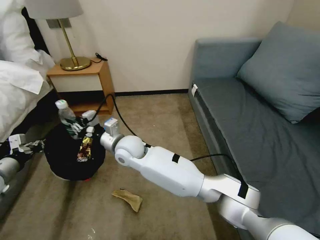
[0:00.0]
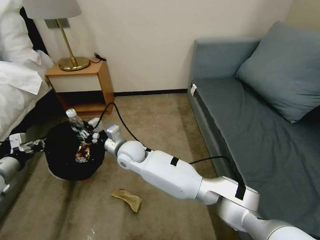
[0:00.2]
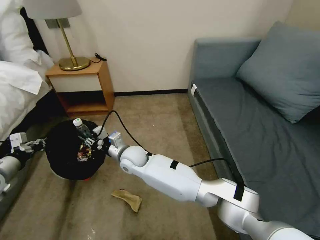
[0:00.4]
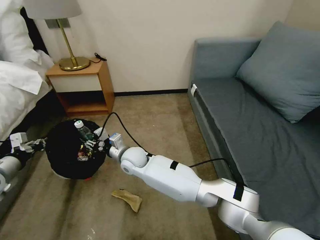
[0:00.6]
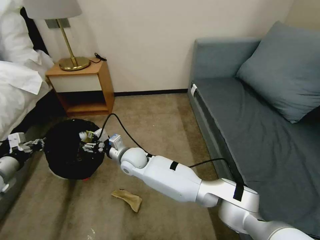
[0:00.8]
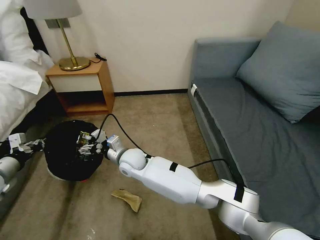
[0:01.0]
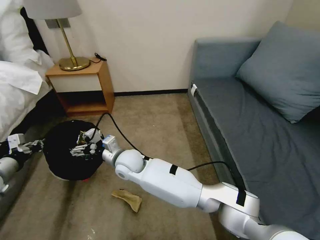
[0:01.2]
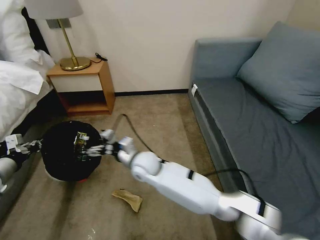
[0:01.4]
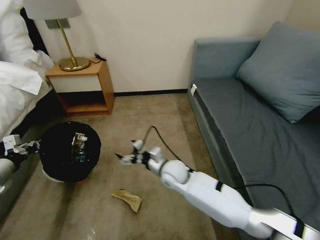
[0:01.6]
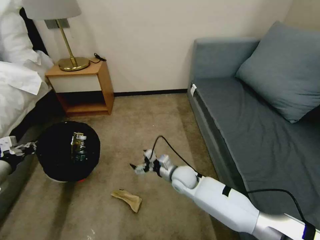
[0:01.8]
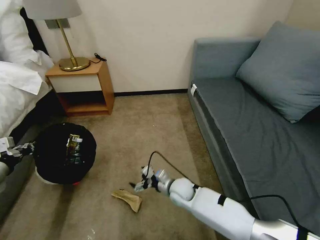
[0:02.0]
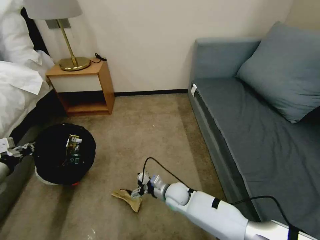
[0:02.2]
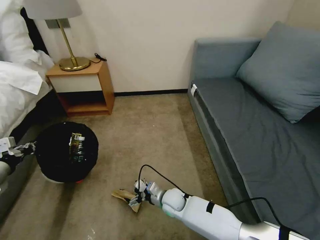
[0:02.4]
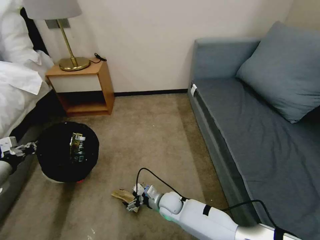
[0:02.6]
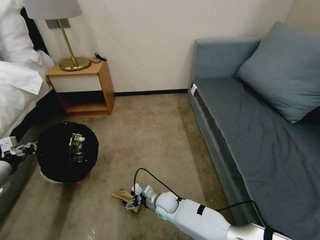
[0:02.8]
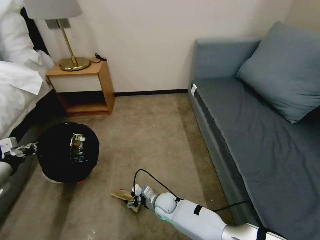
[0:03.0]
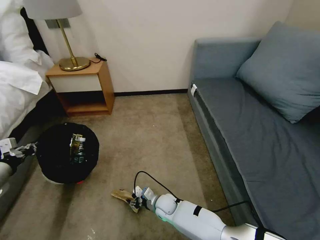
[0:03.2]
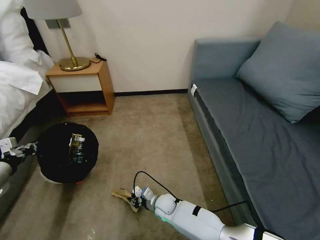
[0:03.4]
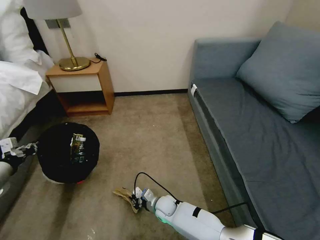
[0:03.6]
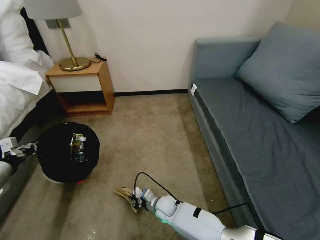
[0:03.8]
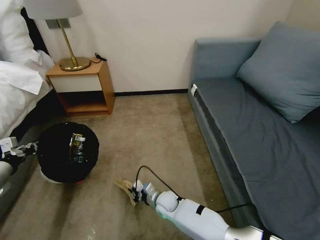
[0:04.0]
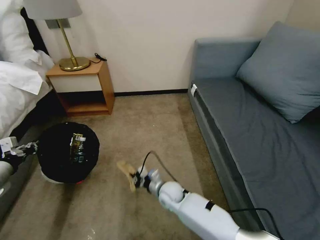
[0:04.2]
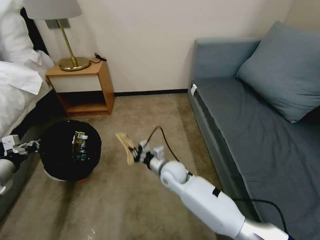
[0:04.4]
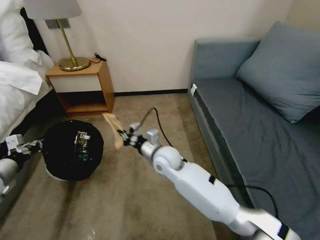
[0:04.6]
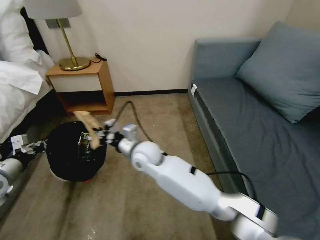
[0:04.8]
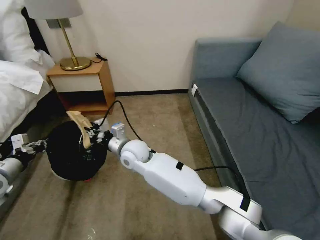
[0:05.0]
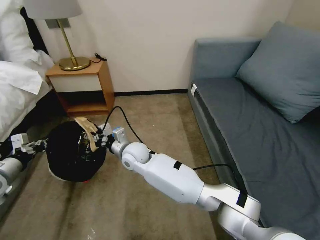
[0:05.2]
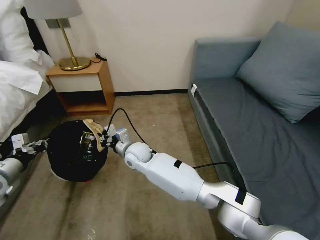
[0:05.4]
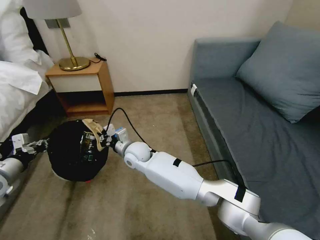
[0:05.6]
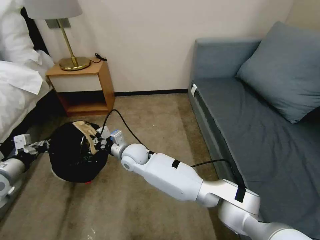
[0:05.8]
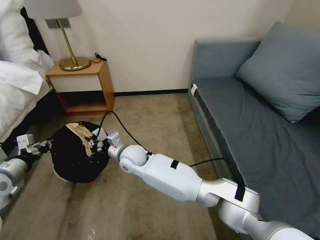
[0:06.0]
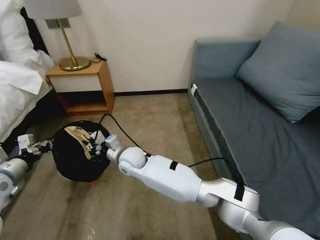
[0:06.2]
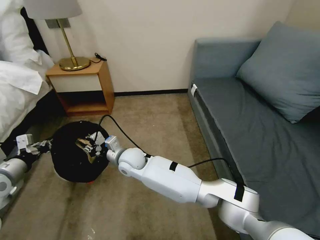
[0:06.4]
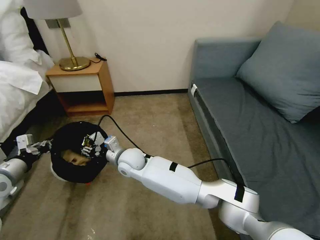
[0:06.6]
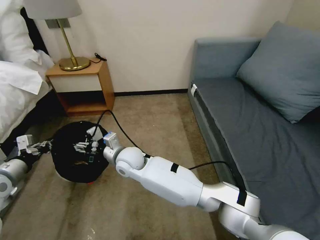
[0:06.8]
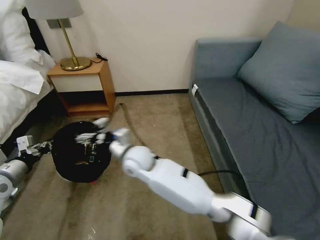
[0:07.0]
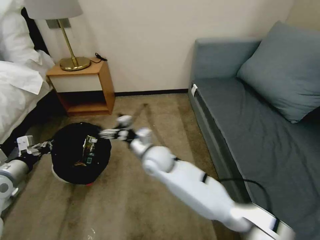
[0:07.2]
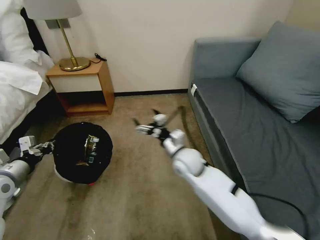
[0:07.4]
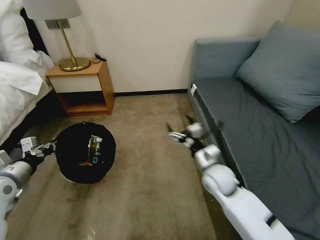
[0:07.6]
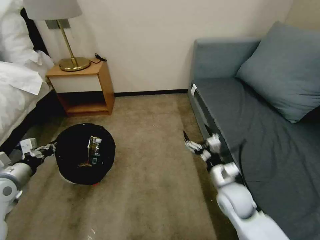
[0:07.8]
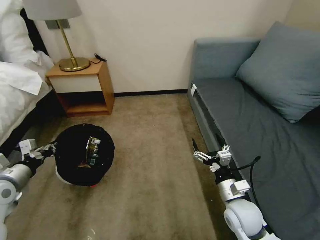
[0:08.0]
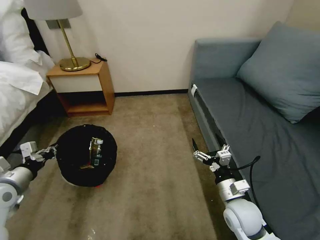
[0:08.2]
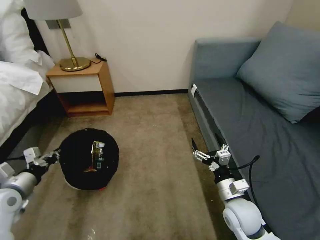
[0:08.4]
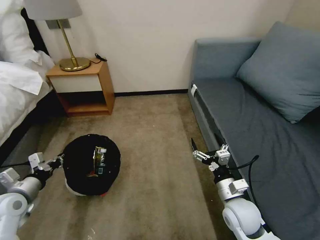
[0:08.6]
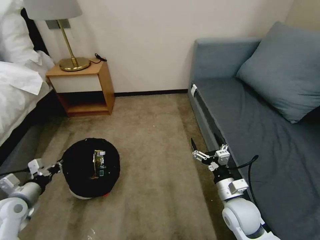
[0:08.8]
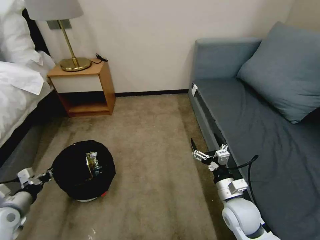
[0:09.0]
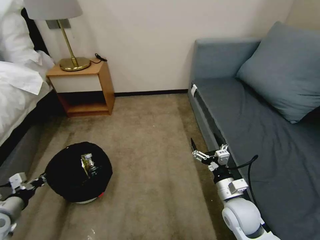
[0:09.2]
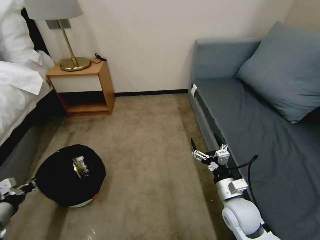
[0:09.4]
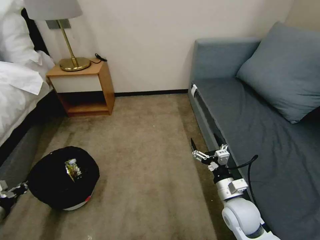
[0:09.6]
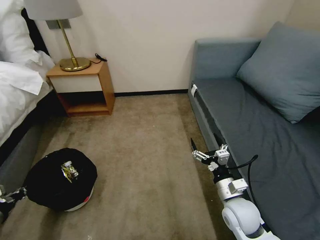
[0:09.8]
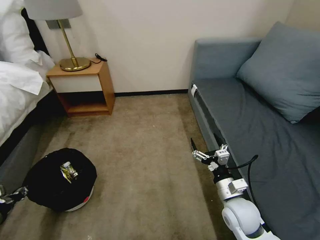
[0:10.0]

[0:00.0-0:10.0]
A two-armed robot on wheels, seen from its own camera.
Task of the whole recording: Pick up the trash bin, then pick up the garbage on the floor and place it into the trash bin.
0:00.0 to 0:01.4: The right gripper is displaced downward by some 5 cm, and opens its fingers.
0:01.4 to 0:02.8: The right gripper is displaced downward and to the right by some 25 cm.
0:02.8 to 0:04.2: The right gripper goes about 10 cm upward, and closes.
0:04.2 to 0:05.8: The right gripper heads to the left, upward and forward, covering some 20 cm.
0:05.8 to 0:07.2: The right gripper heads to the right, covering roughly 10 cm, and opens up.
0:07.2 to 0:08.6: The left gripper heads downward, covering roughly 5 cm, while the right gripper moves to the right and backward, approximately 30 cm.
0:08.6 to 0:10.0: The left gripper heads to the left and backward, covering approximately 10 cm.

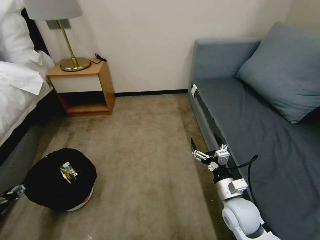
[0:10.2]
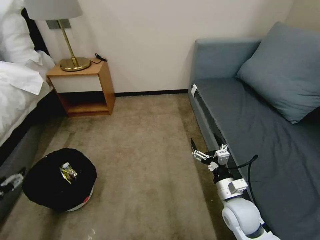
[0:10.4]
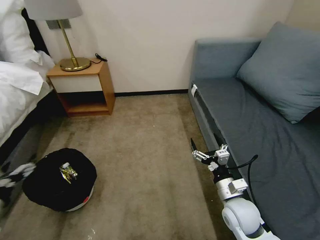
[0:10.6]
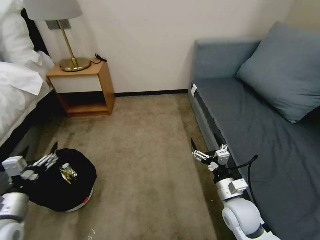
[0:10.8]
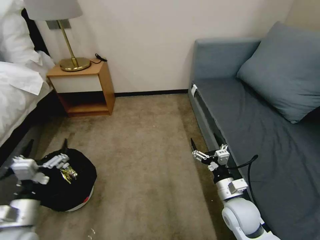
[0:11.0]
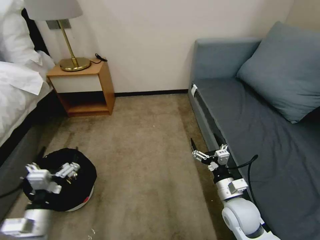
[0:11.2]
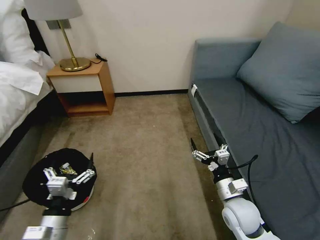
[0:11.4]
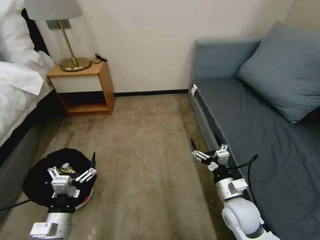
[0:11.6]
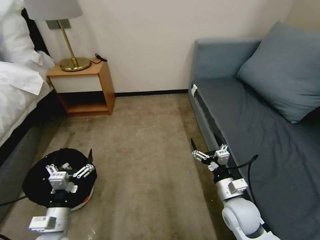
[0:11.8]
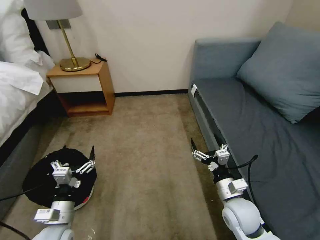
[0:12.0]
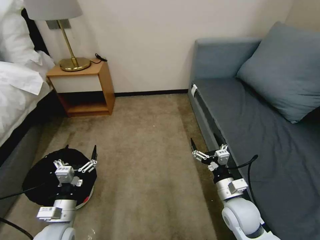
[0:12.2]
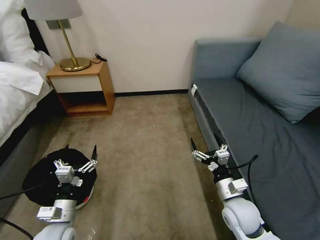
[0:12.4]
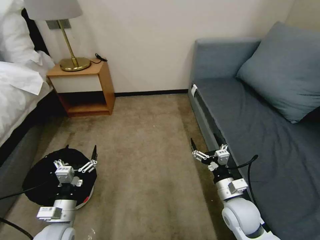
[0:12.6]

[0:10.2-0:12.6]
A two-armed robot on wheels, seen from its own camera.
Task of the whole recording: Pick up the trash bin, then pick up the garbage on the floor and place it into the trash bin.
0:10.2 to 0:11.4: The left gripper is displaced to the right by some 25 cm, and opens up.
0:11.4 to 0:12.6: The left gripper moves about 5 cm.

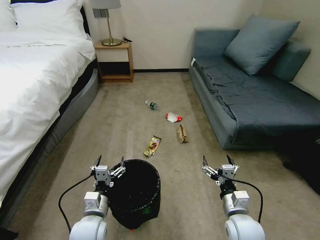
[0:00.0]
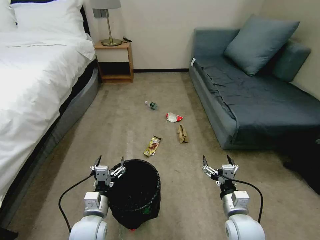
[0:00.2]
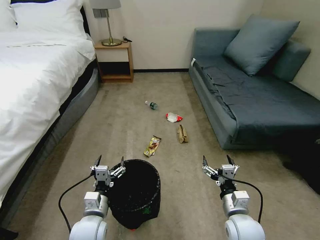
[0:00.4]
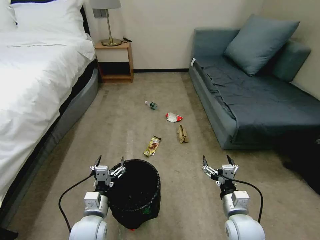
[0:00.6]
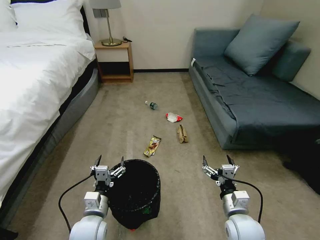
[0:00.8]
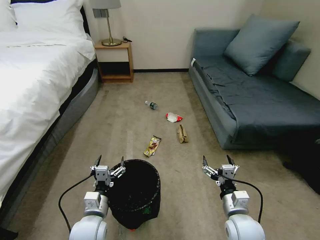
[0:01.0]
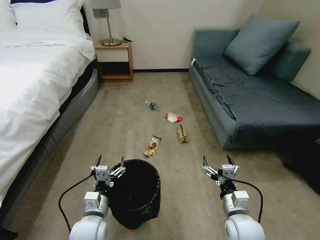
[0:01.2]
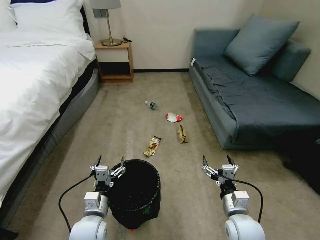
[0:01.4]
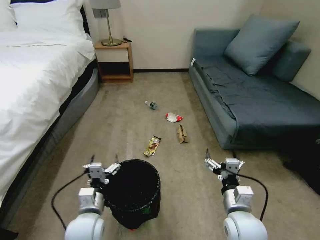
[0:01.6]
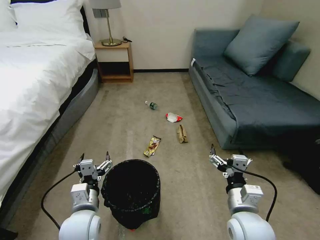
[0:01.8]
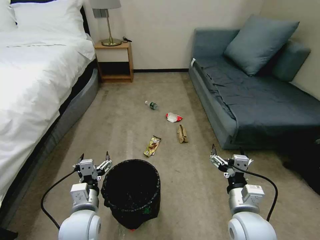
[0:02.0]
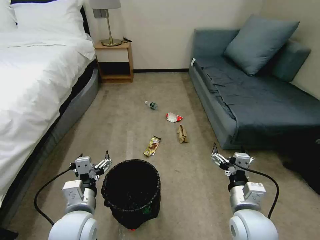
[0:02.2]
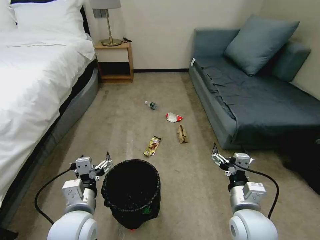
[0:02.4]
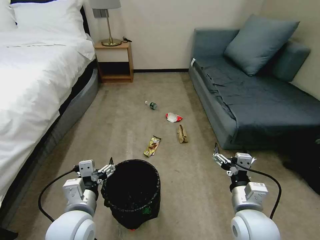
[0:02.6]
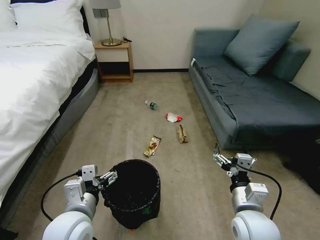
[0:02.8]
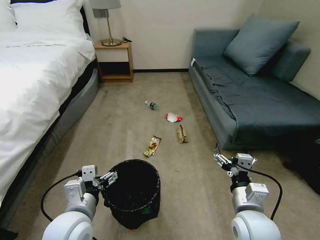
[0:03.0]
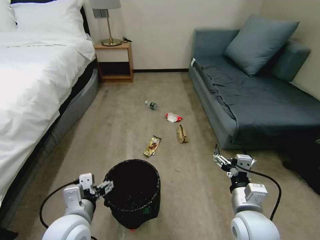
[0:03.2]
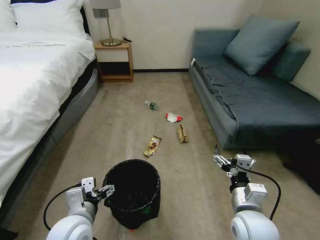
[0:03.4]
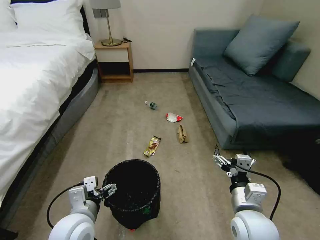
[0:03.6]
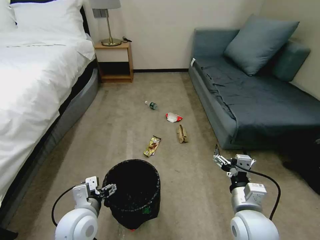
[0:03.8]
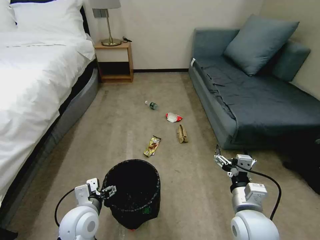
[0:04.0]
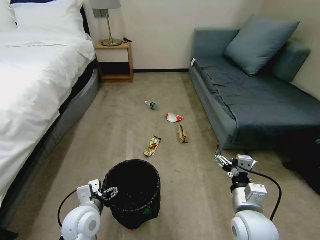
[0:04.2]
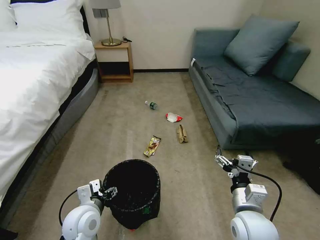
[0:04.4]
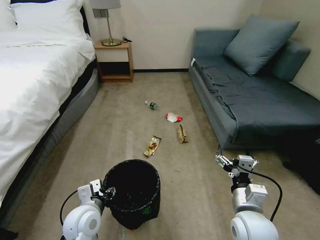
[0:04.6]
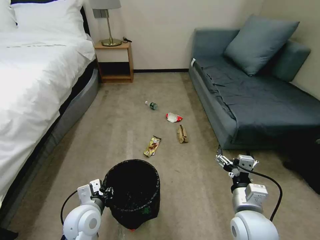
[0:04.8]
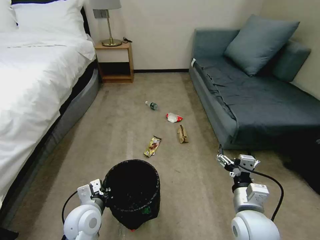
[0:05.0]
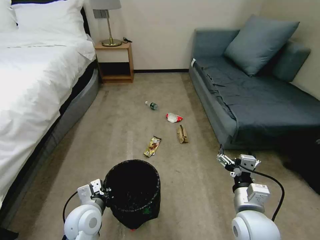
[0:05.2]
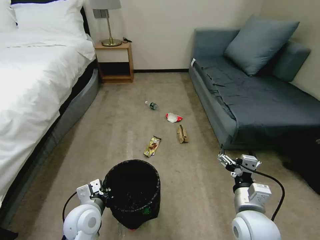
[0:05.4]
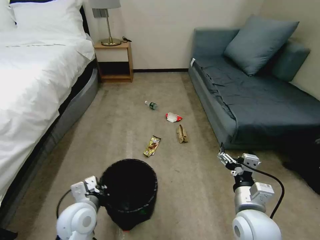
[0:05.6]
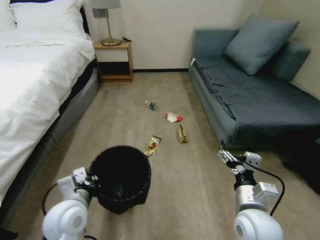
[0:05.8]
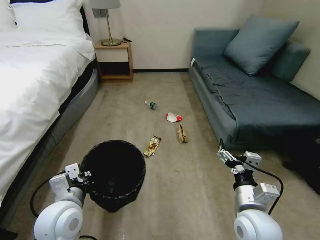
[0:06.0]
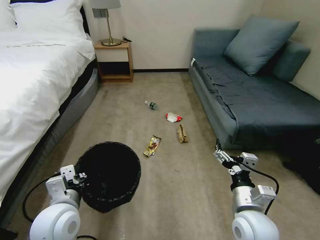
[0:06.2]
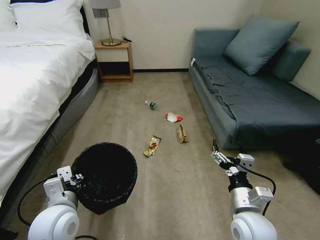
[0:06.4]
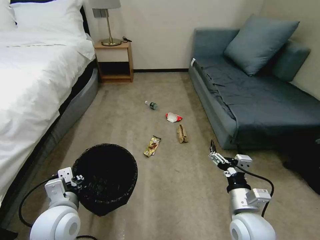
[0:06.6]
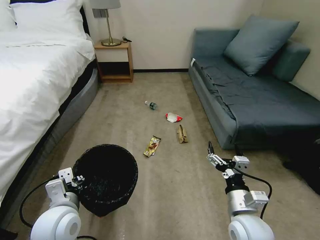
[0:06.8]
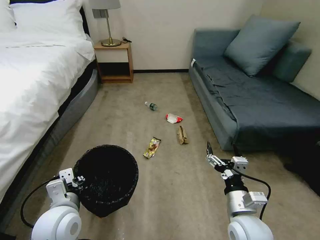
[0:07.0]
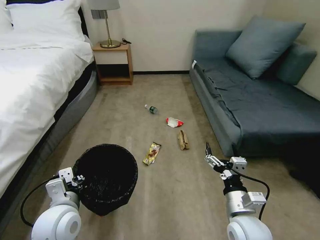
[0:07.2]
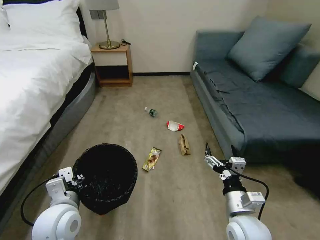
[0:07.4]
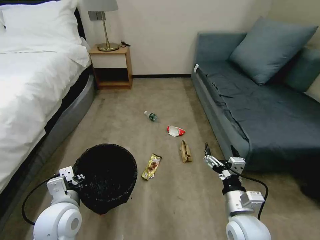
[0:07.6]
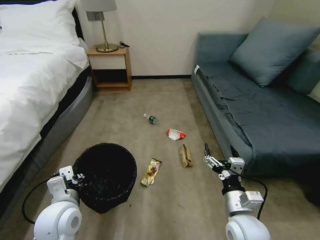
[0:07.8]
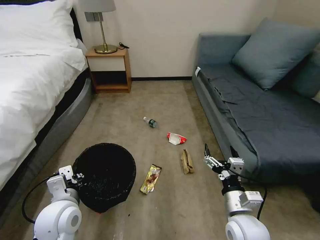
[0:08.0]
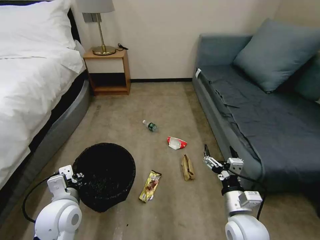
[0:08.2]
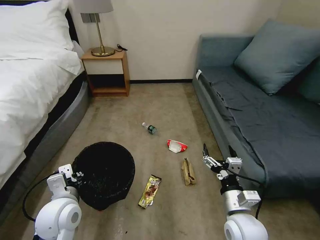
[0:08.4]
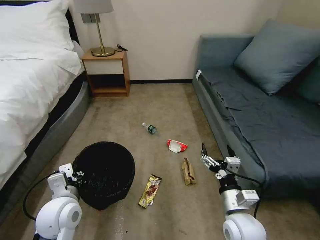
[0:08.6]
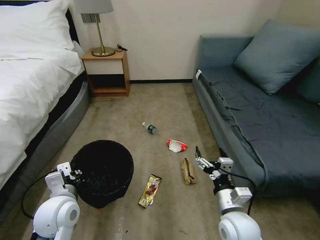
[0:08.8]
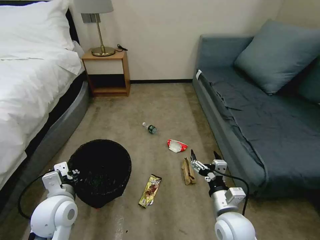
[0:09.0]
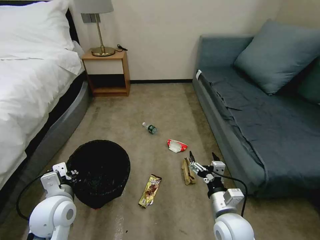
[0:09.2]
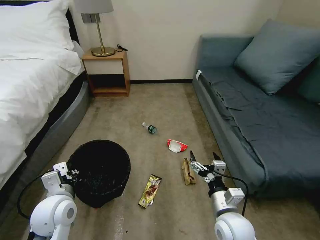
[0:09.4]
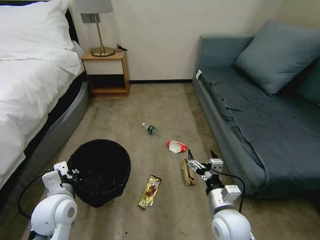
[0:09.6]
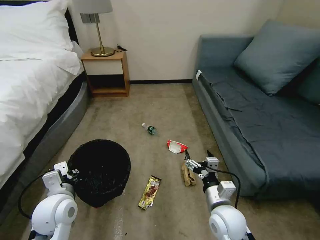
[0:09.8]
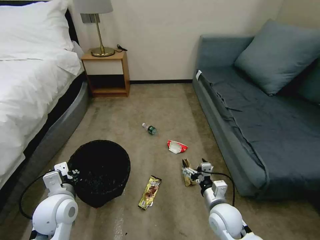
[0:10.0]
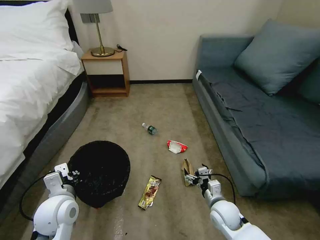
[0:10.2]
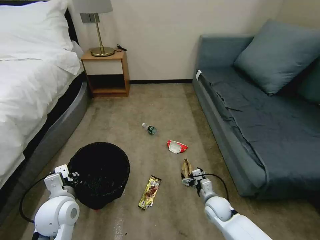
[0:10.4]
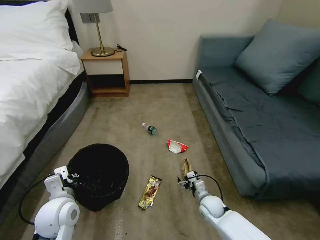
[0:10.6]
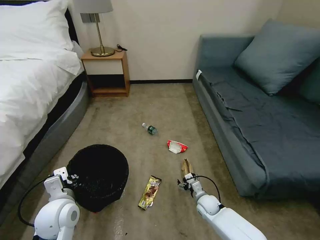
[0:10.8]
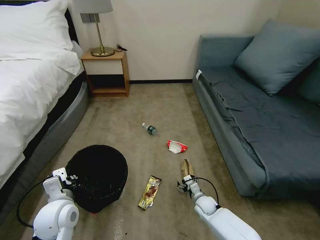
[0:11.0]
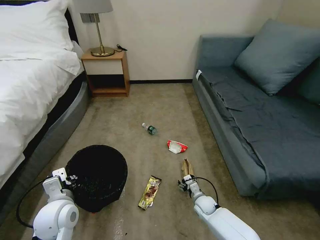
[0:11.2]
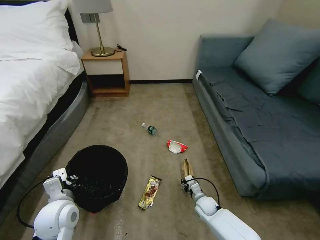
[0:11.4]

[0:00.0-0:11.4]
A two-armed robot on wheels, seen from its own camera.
Task of the whole recording: Pick up the trash bin, then pick up the garbage on the floor and place it into the trash bin.
0:01.4 to 0:02.8: Both grippers move upward, some 10 cm.
0:02.8 to 0:04.2: The left gripper goes some 10 cm downward.
0:04.2 to 0:05.6: The left gripper closes its fingers.
0:05.6 to 0:07.2: The left gripper travels upward by roughly 5 cm.
0:08.6 to 0:10.0: The right gripper shifts about 5 cm downward.
0:10.0 to 0:11.4: The right gripper goes about 20 cm downward and forward, and closes its fingers.
